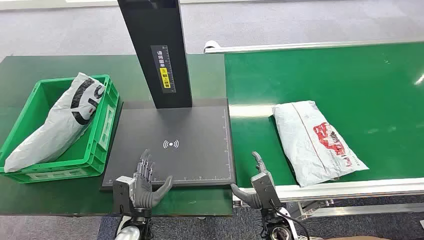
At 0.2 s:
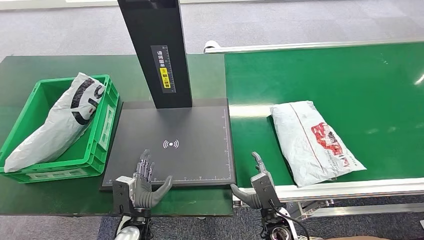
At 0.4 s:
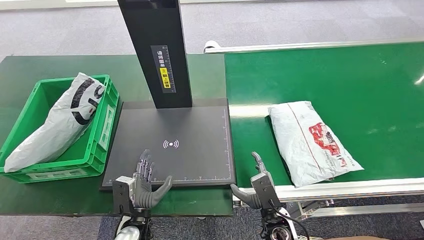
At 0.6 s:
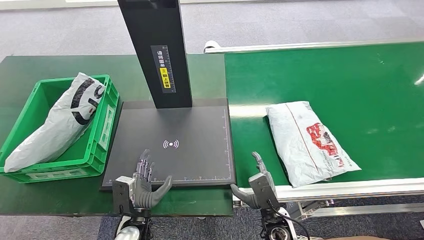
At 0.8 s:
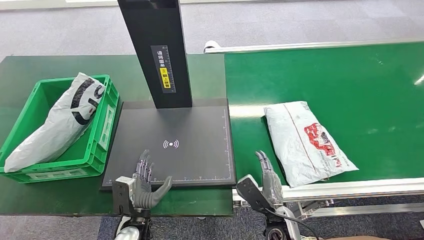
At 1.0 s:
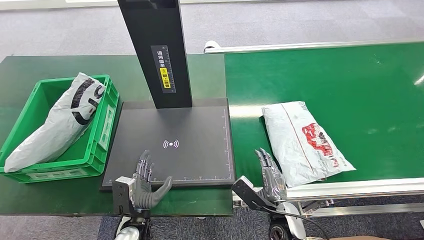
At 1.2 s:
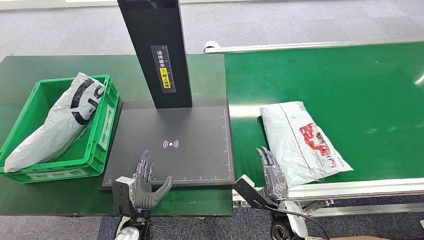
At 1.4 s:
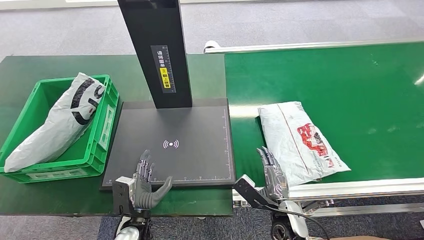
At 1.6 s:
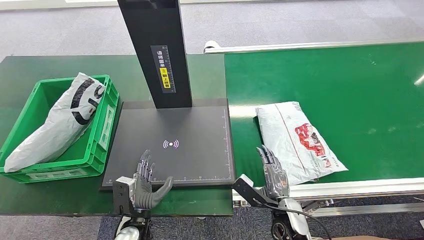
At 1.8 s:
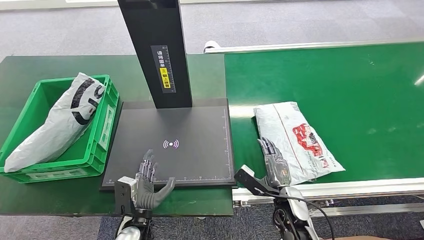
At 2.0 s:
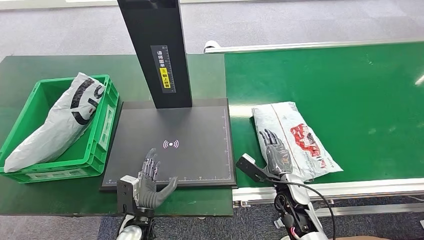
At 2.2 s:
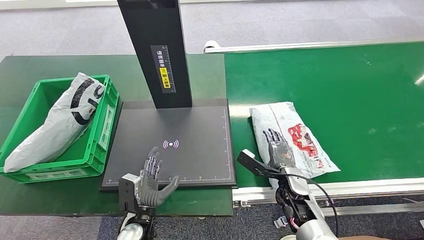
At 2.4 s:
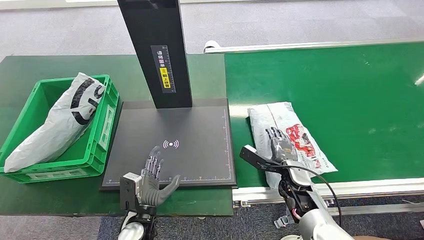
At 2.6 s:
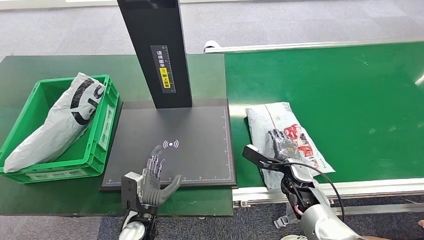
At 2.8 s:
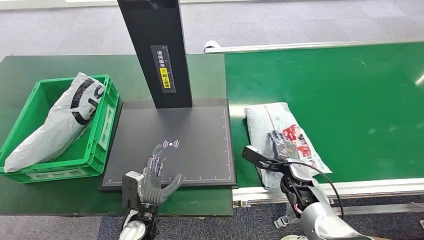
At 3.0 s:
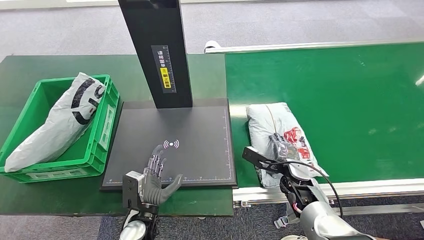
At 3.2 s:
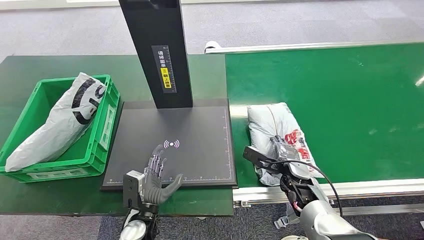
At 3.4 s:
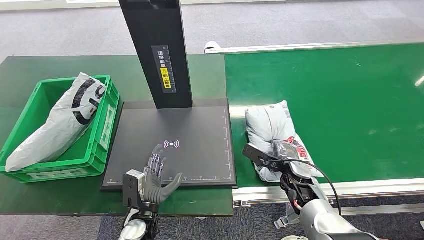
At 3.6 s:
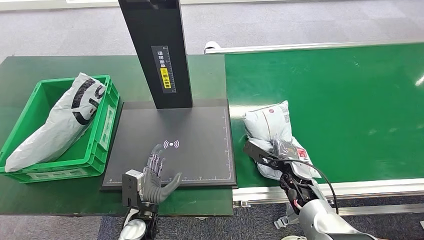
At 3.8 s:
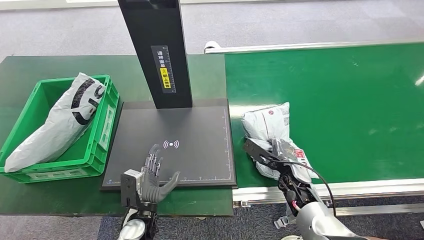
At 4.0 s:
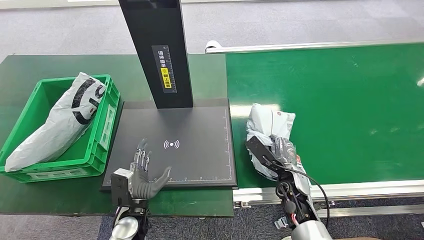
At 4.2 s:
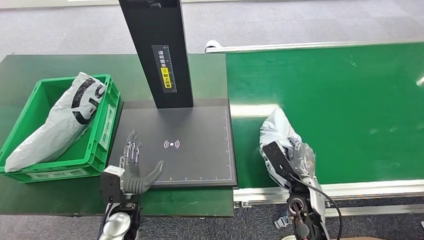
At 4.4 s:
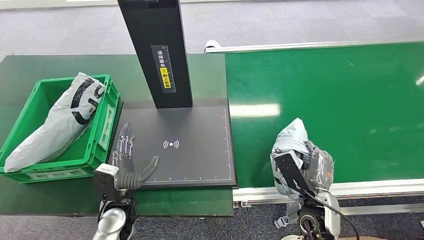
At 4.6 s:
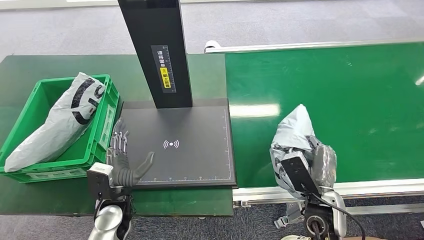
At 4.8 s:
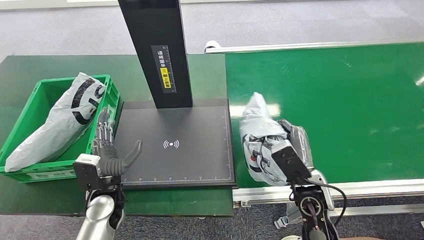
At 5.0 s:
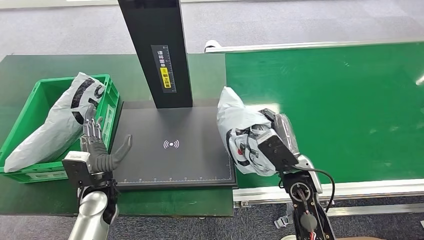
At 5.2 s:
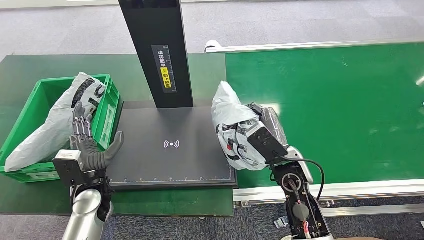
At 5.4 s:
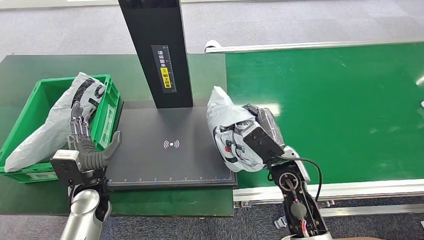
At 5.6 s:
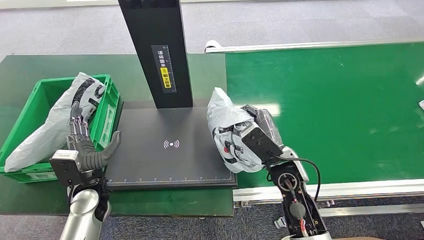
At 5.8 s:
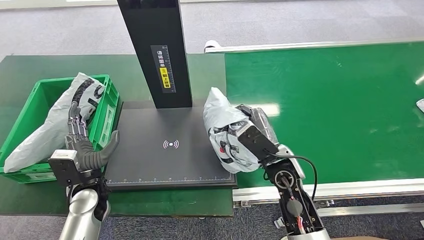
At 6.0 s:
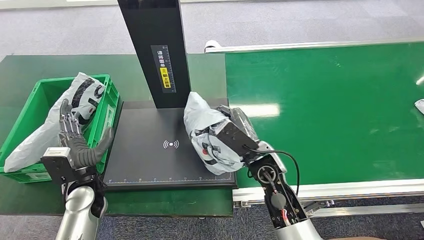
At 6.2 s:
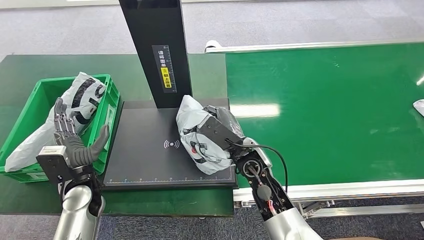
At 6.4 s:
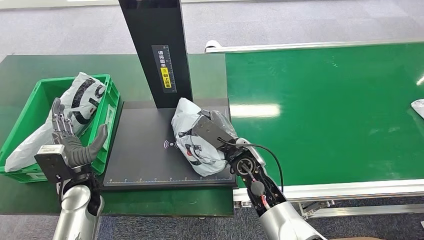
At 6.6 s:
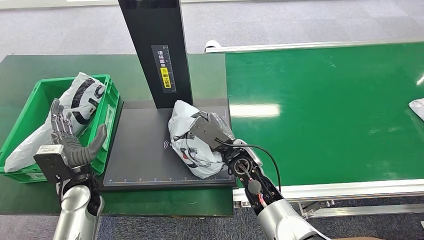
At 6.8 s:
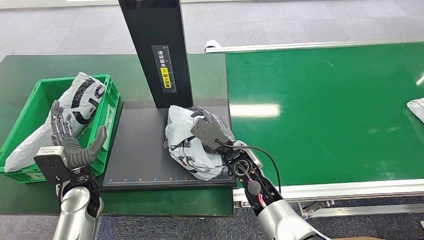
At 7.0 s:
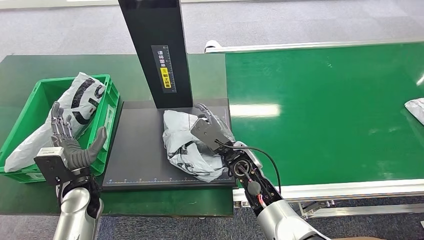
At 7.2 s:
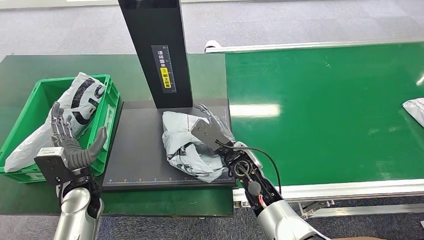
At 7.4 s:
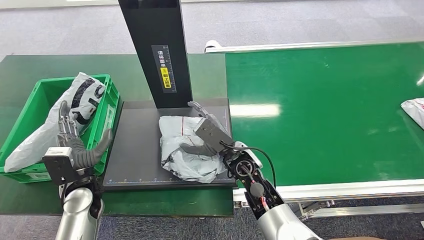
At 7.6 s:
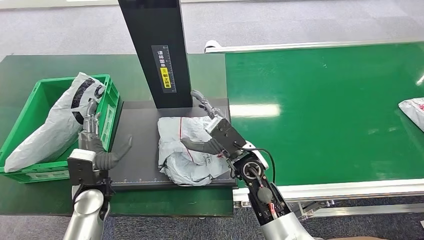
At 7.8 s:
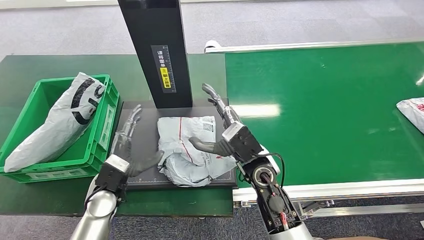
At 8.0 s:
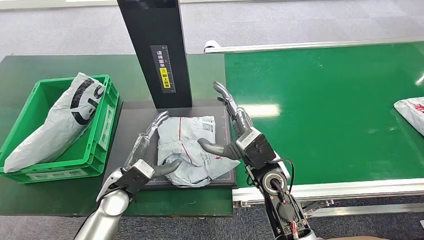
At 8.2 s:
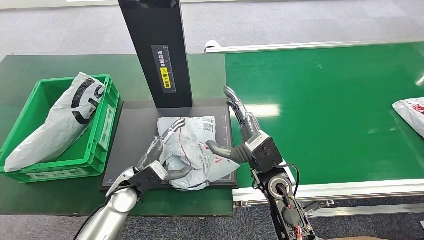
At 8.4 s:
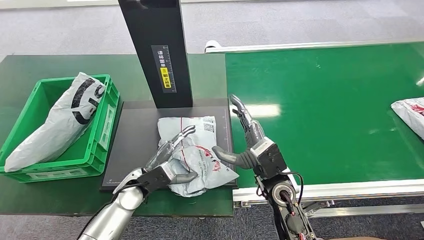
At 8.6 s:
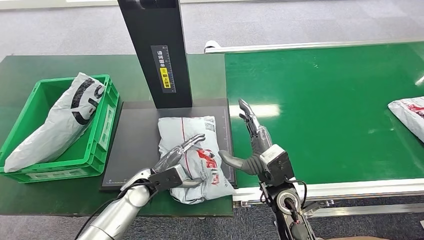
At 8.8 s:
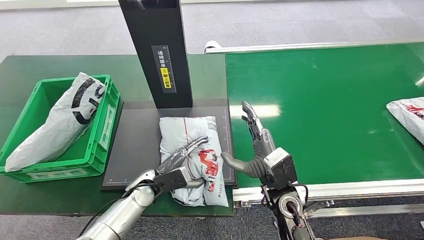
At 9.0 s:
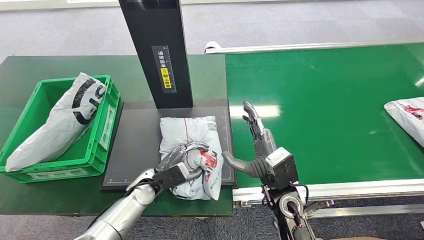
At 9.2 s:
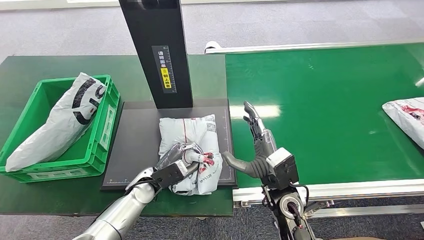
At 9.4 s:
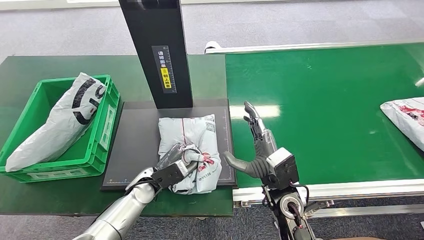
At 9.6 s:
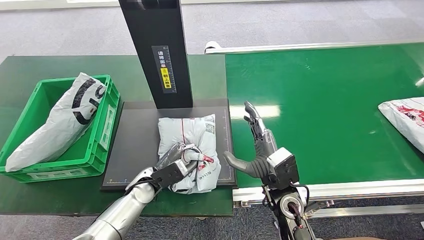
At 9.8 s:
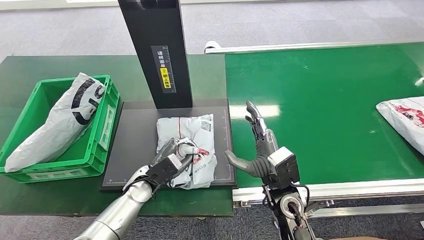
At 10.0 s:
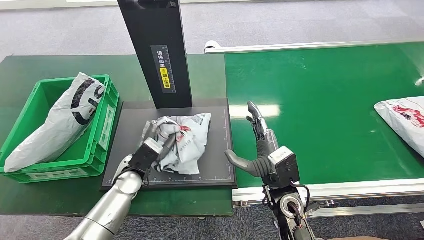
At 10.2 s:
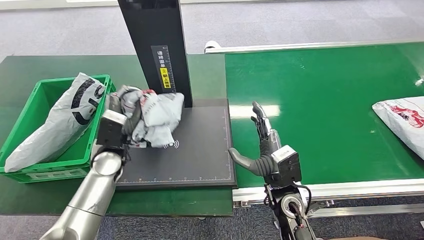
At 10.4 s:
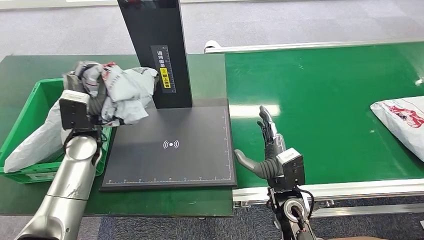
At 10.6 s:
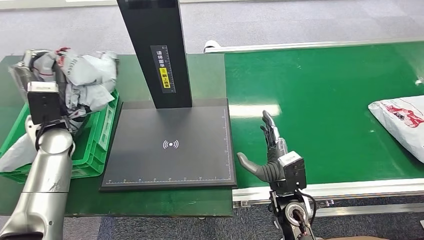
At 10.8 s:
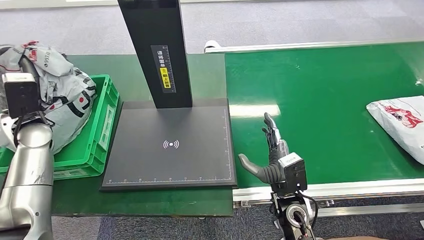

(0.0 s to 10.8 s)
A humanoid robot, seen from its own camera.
Task of the whole recording: Weigh the package on the weighing device and place it in the left basket.
Step, 0.0 s - 4.6 s: Pick up the package from the conveyor belt.
Step, 5.0 s - 8.2 s: Place the package onto the inbound machine.
Step, 8.4 s - 10.6 s: Pick up the package from the inbound machine.
1.6 s - 3.0 s: The right hand heads forward and to the right, covering roughly 15 cm.
3.0 s - 4.6 s: The left hand heads upward and to the left, covering about 10 cm. The right hand is displaced backward and upward by some 15 cm.
6.2 s - 7.8 s: The left hand travels to the right by approximately 5 cm.
7.8 s - 9.2 s: The right hand goes about 5 cm to the right. The left hand shifts about 10 cm to the right and downward.

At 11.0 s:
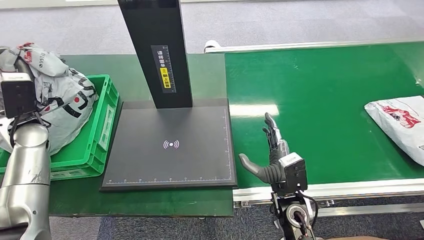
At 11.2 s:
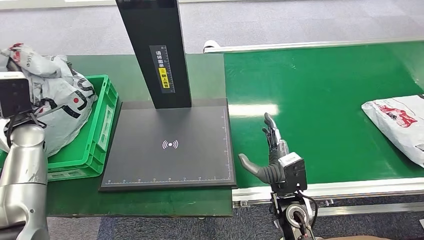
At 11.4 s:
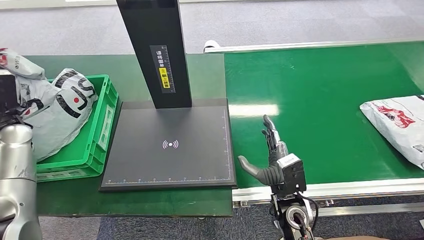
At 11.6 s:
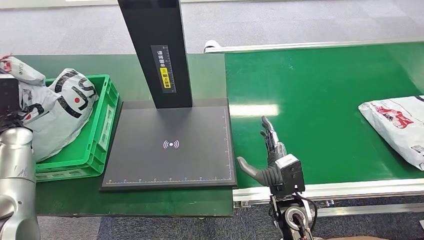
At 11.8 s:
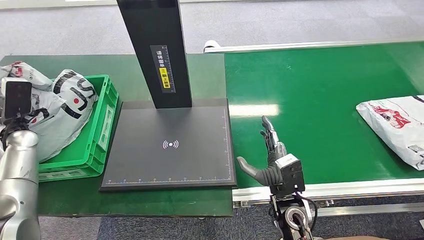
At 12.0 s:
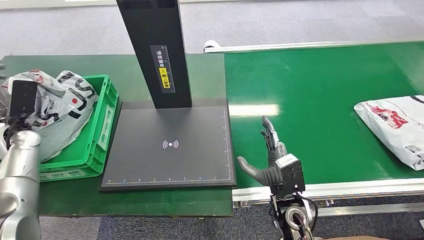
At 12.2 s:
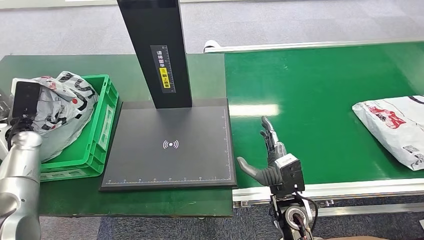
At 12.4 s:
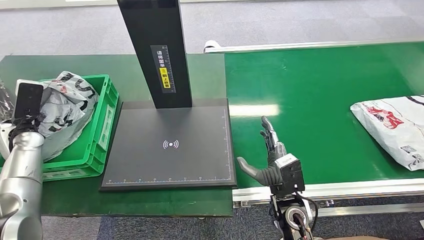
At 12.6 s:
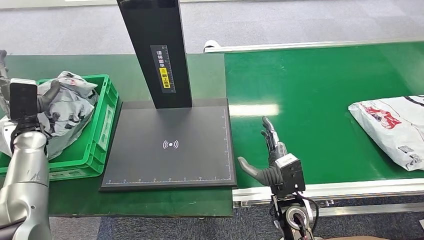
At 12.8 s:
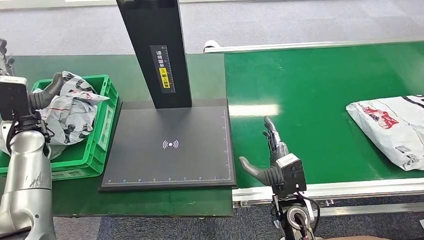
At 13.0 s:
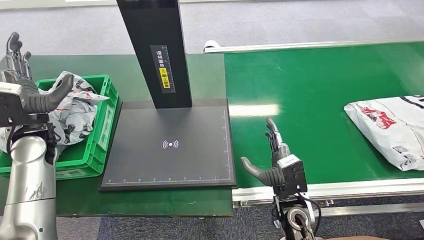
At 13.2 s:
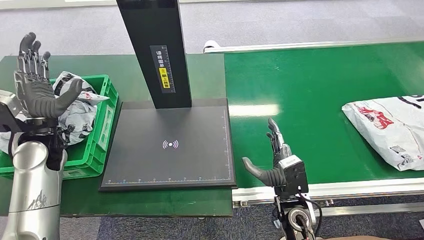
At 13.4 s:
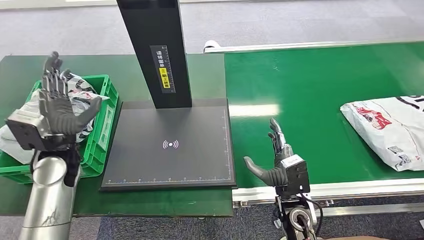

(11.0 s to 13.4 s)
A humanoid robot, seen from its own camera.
Task of the whole recording: Weigh the package on the weighing device and place it in the left basket.
Step, 11.0 s - 13.2 s: Place the package into the parcel locker.
11.0 s - 12.2 s: The left hand goes approximately 10 cm to the left and downward.
12.2 s - 13.4 s: The left hand moves to the right, some 15 cm.
